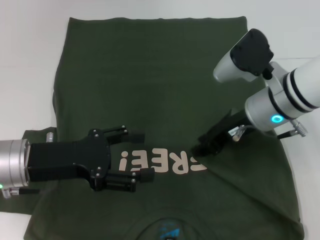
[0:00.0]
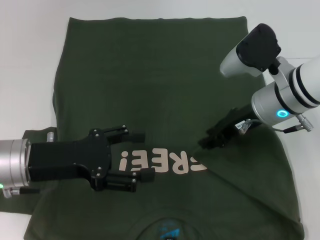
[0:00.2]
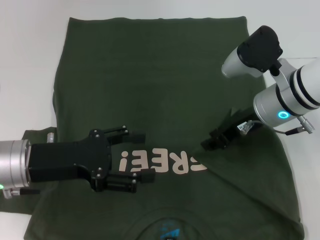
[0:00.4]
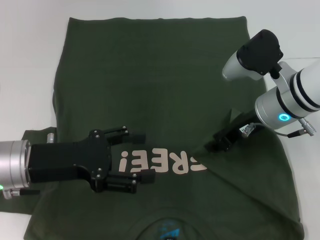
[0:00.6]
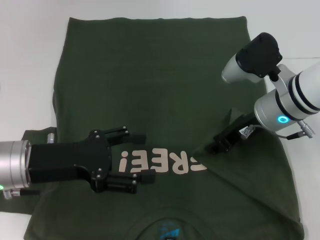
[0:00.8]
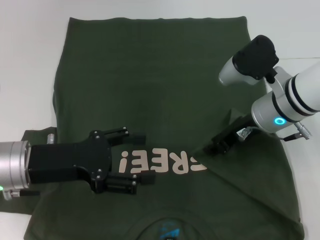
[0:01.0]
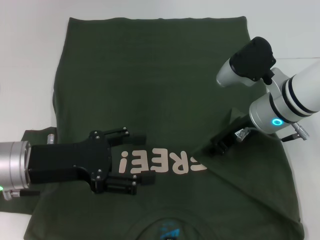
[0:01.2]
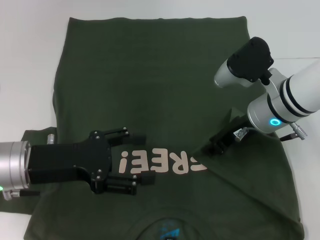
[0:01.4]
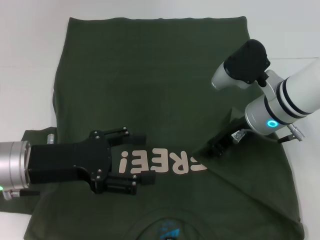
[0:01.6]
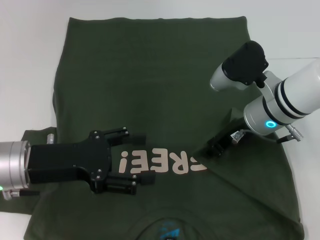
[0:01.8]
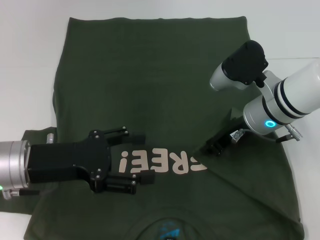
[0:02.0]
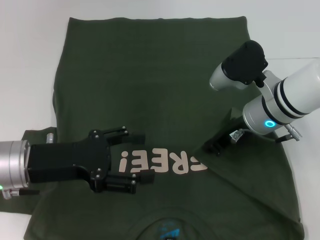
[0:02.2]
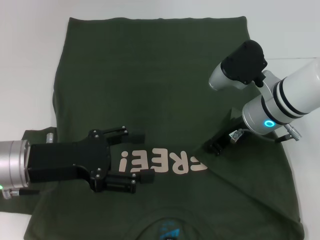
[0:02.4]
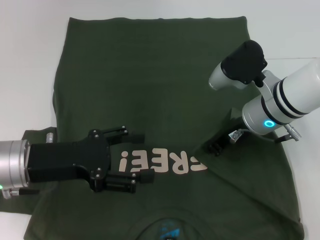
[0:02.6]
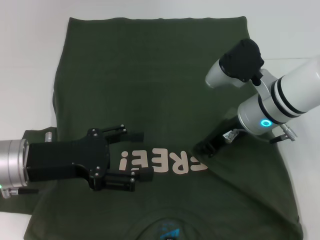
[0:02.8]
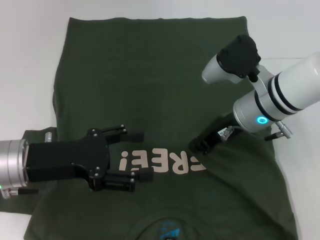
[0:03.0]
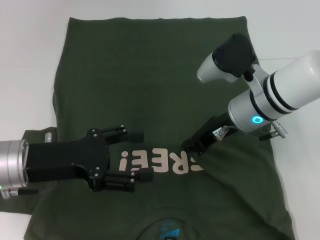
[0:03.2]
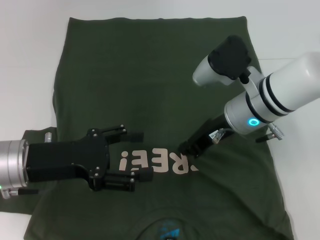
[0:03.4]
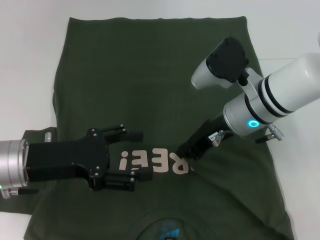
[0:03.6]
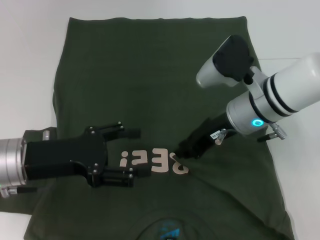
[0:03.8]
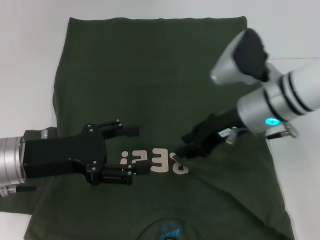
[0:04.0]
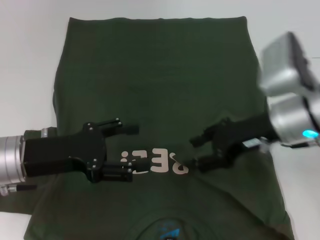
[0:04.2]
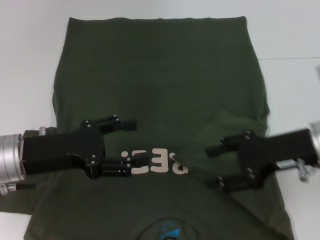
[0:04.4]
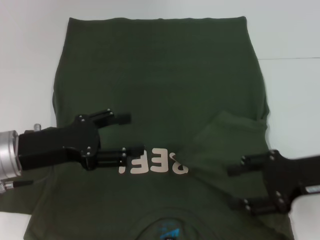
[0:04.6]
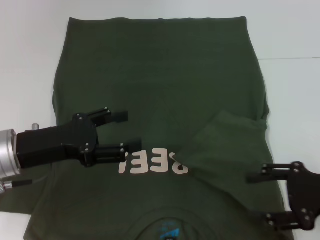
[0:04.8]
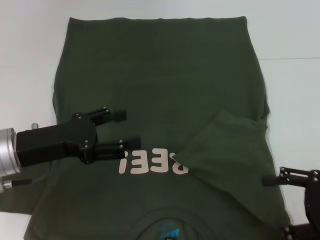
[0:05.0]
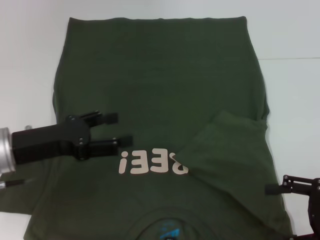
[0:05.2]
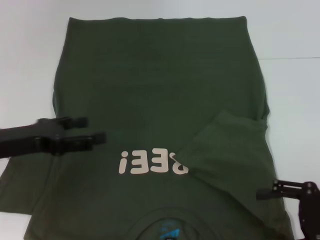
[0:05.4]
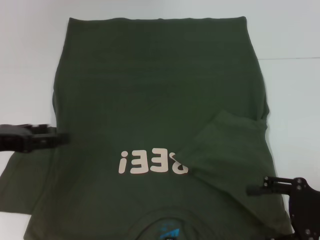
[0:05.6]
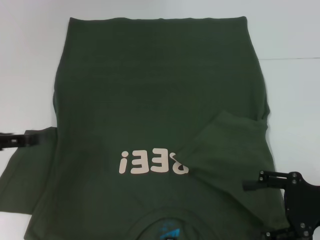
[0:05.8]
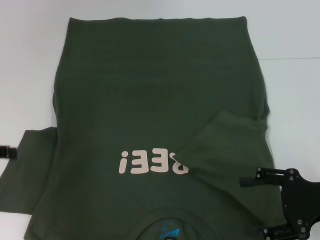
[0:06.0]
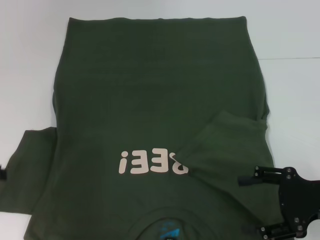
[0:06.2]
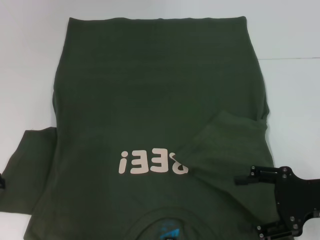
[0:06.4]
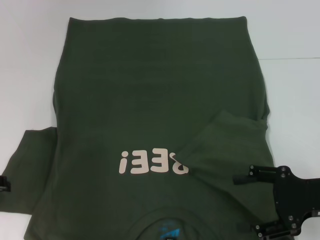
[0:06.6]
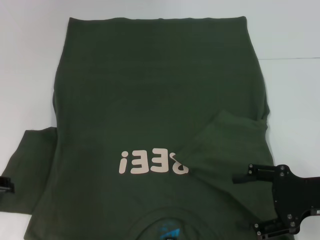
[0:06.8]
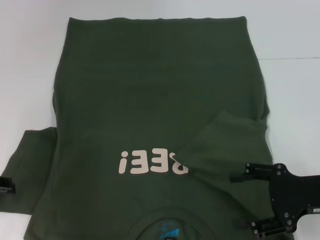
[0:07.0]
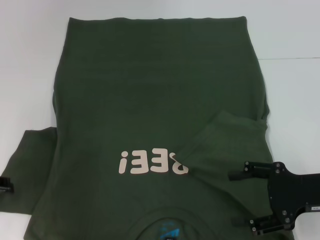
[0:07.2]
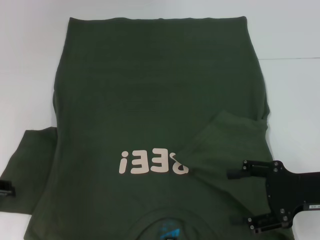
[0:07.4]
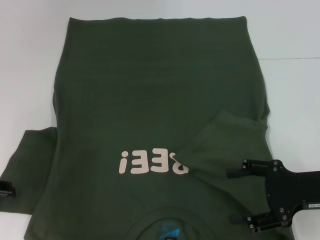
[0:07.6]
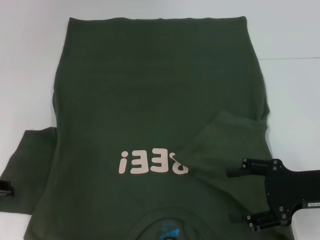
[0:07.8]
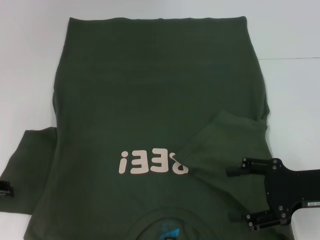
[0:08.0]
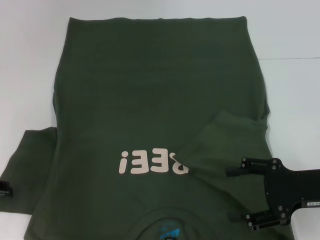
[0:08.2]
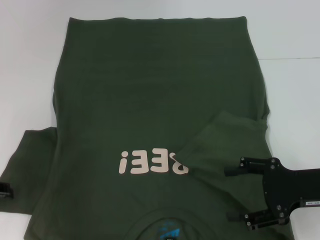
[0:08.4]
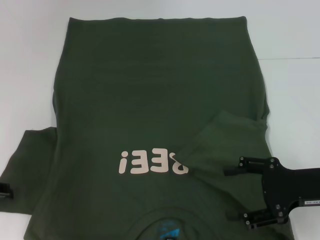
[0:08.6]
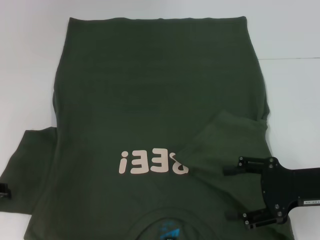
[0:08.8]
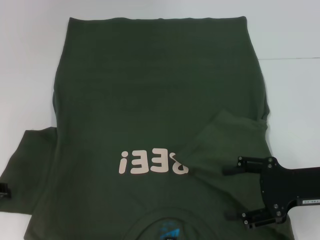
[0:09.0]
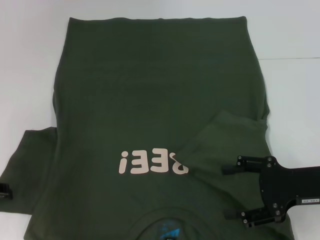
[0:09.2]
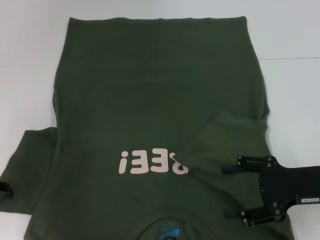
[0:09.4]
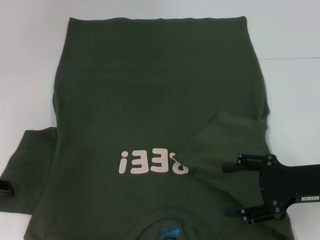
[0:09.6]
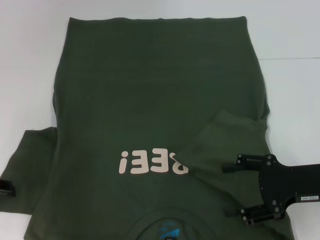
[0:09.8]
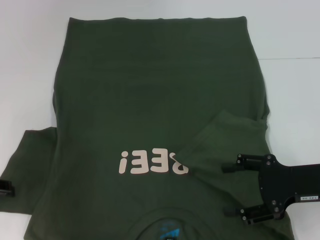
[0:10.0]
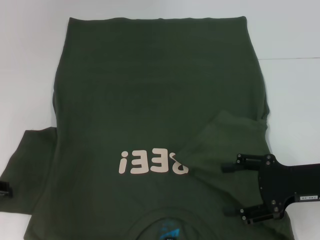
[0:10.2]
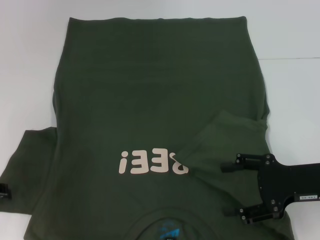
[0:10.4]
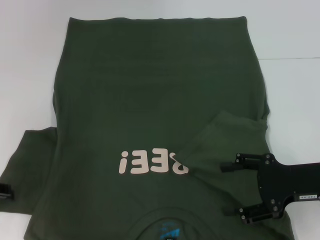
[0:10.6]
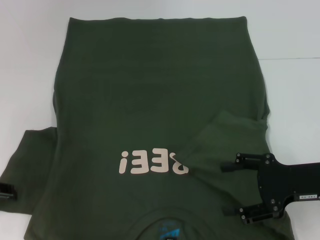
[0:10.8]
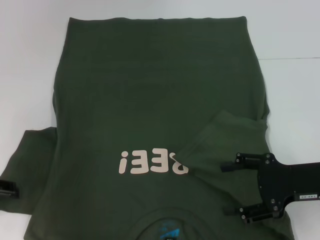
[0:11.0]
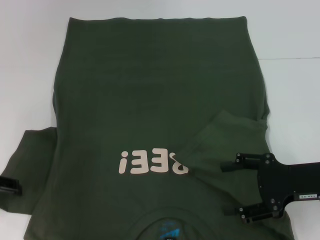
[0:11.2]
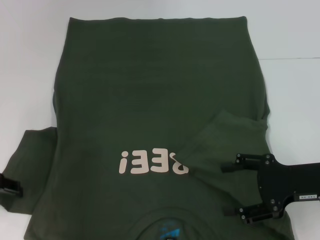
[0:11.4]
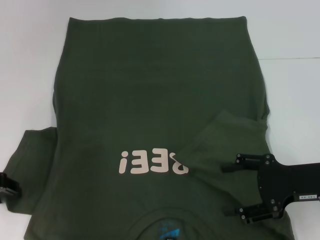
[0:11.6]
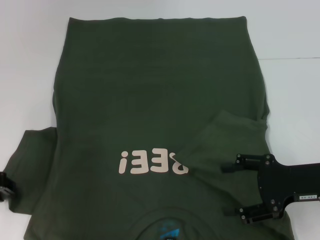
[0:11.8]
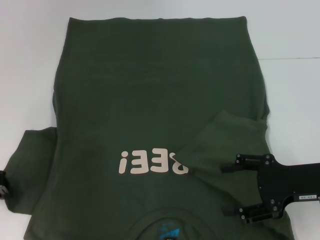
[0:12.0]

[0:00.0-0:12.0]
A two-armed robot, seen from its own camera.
Step, 0:00.0 to 0:04.2: Fold the bottom right sleeve with your right hand.
0:00.0 to 0:01.6: The grippers move only a little.
0:01.6 to 0:03.0: The right gripper closes.
0:03.0 to 0:04.4: The right gripper goes some 10 cm to the right and backward, and opens its fingers.
0:04.4 to 0:06.0: The right gripper heads backward and to the right, covering about 10 cm; the left gripper is displaced to the left and upward by roughly 15 cm.
0:07.6 to 0:10.4: The two grippers keep their place.

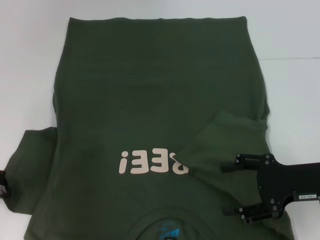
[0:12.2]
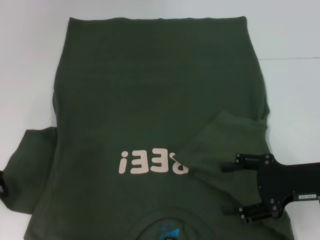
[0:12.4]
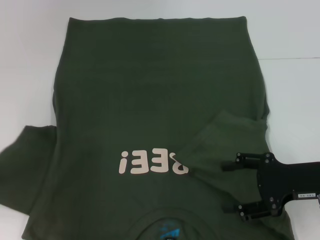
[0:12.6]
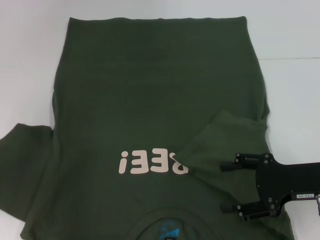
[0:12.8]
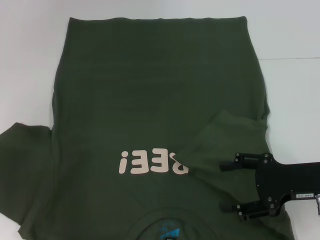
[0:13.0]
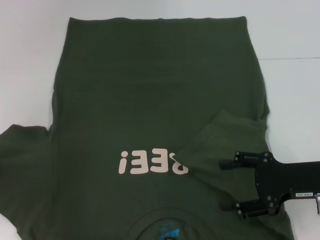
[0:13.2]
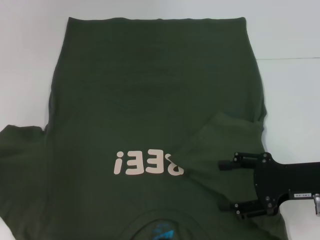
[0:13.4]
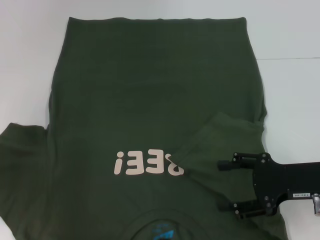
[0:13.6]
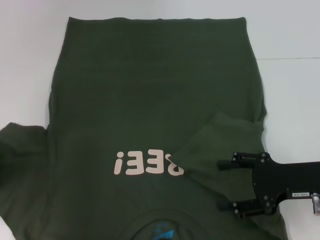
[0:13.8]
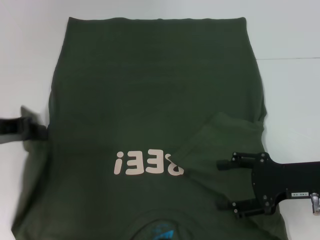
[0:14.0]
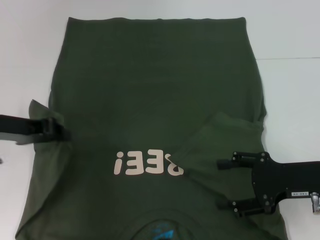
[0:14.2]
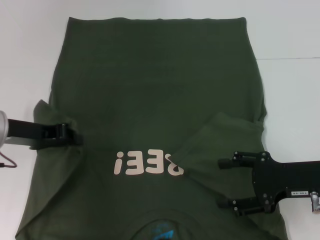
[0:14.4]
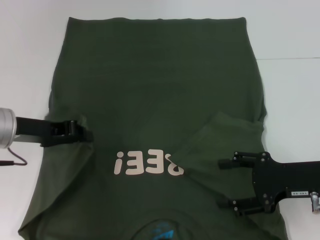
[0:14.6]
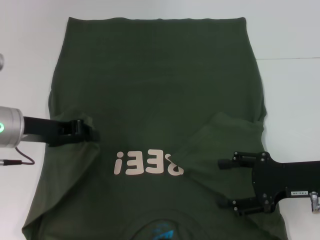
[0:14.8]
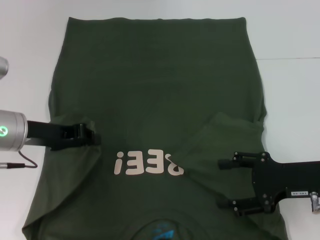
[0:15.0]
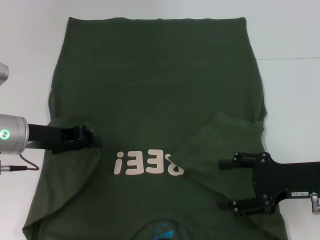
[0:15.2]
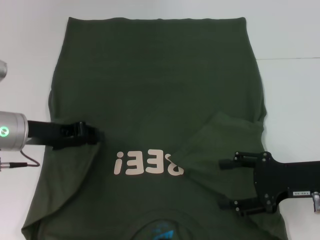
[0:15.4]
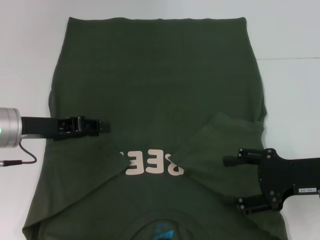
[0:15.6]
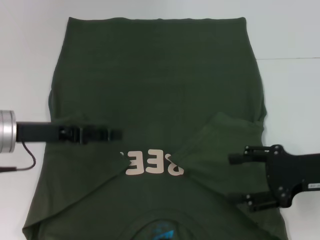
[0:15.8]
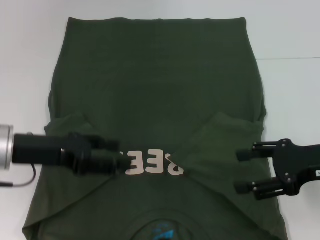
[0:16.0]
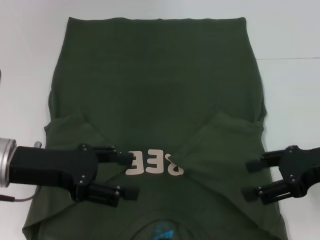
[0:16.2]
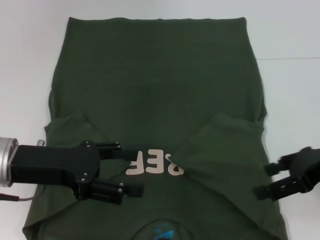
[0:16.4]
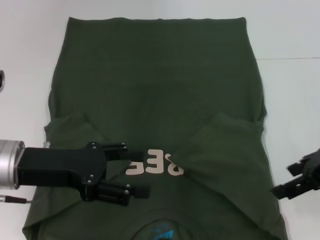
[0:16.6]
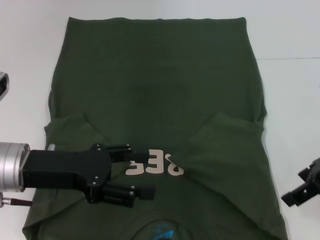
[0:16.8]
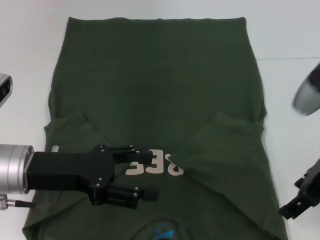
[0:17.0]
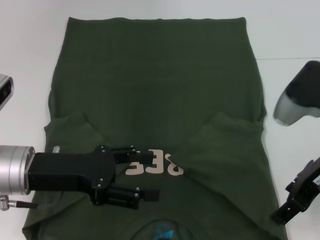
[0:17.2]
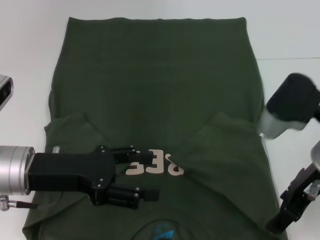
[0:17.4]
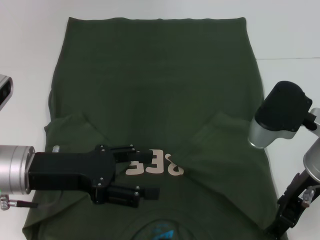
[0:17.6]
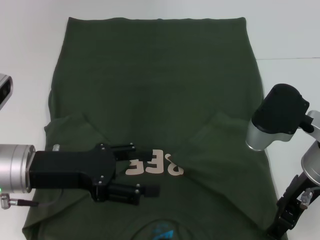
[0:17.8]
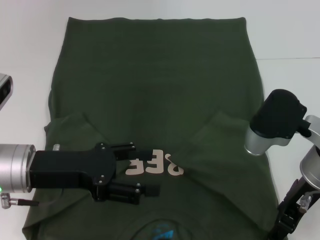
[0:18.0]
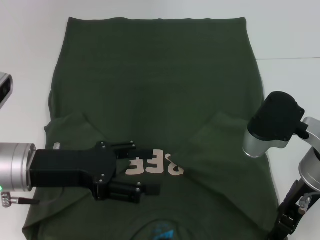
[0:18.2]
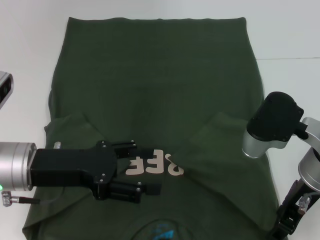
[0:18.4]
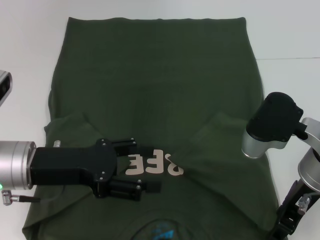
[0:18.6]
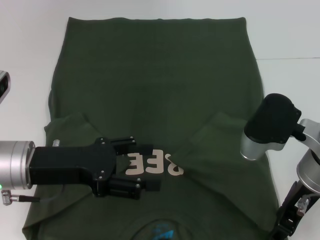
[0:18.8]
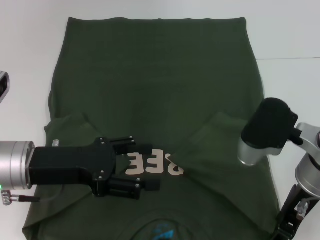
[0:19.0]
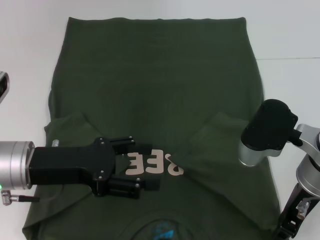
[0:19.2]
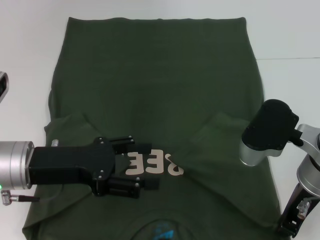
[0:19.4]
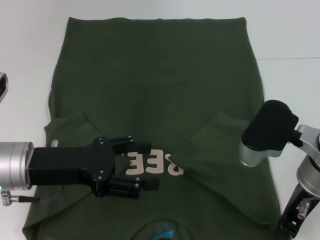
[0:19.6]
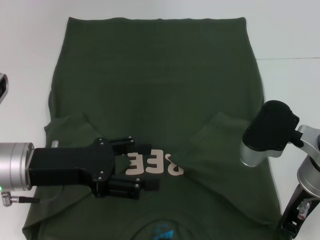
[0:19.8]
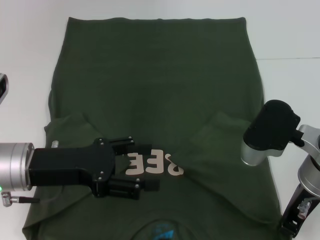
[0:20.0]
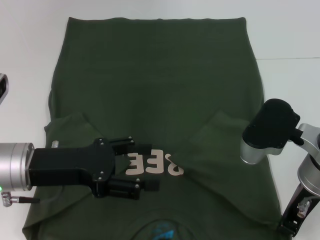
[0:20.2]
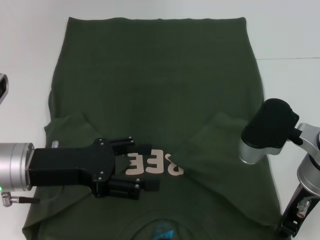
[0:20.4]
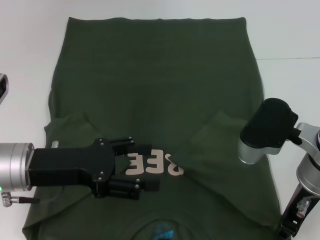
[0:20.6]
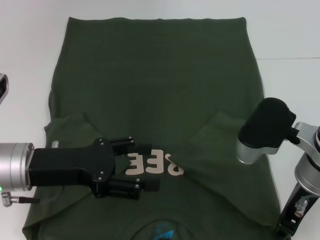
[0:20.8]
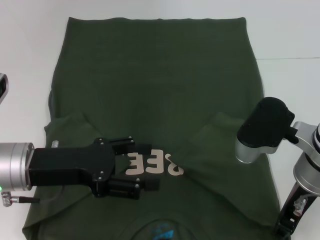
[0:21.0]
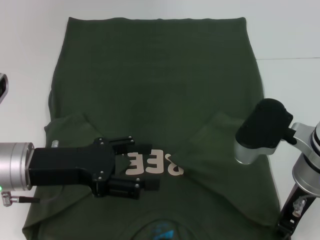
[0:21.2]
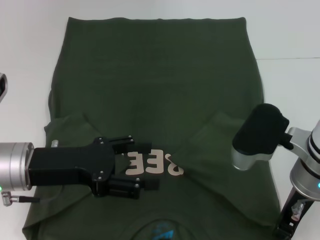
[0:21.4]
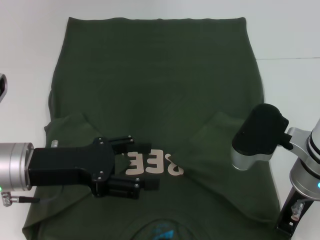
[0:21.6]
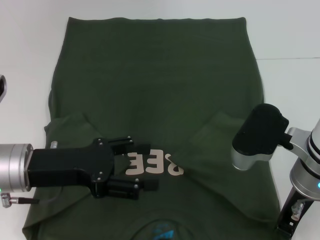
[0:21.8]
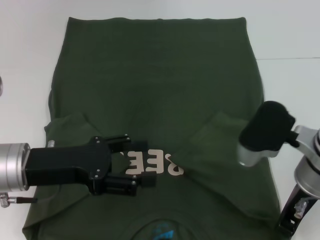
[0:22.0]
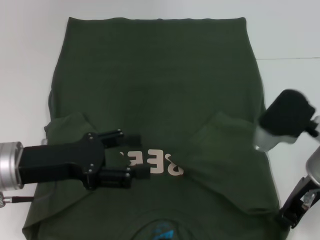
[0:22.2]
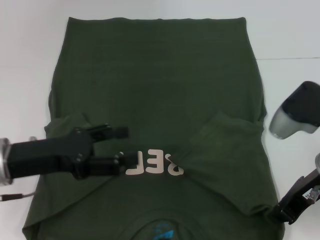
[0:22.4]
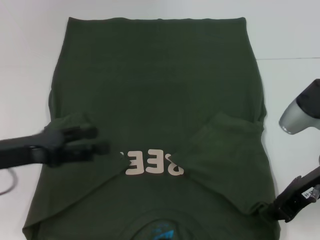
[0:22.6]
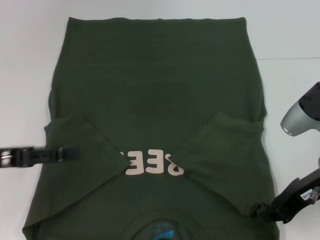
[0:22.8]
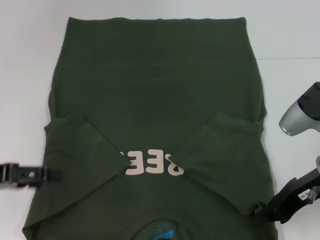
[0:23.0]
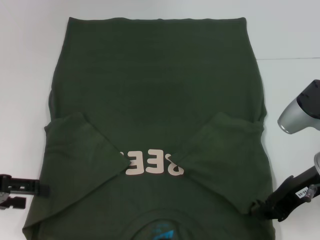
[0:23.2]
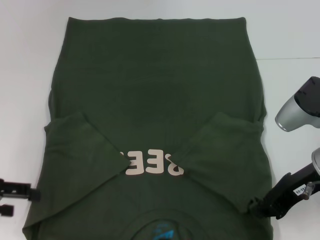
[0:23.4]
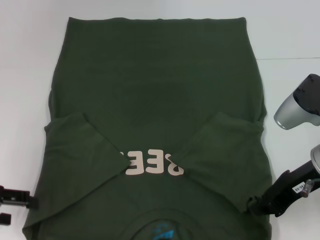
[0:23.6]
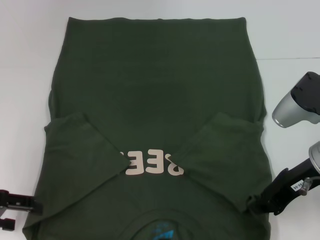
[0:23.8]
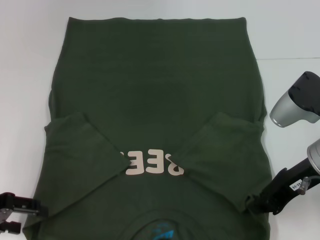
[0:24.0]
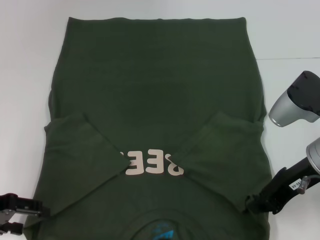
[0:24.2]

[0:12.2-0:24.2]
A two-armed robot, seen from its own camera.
Step, 0:12.2 to 0:15.8: Fold the bottom left sleeve with your left hand.
Step, 0:16.0 to 0:23.0: Grab the bottom right corner with your right hand.
0:13.8 to 0:15.2: The left gripper is displaced to the right by approximately 10 cm.
0:15.2 to 0:16.6: The right gripper is displaced upward by roughly 10 cm. The left gripper heads backward, covering some 5 cm, and opens up.
0:16.6 to 0:18.2: The right gripper shifts roughly 10 cm to the left.
0:18.2 to 0:19.8: The right gripper closes up.
0:19.8 to 0:21.2: Neither gripper changes place.
0:21.2 to 0:22.6: The left gripper moves to the left, roughly 5 cm. The right gripper is displaced to the right by some 5 cm, and closes.
0:22.6 to 0:24.2: The left gripper heads to the left, covering about 5 cm.
